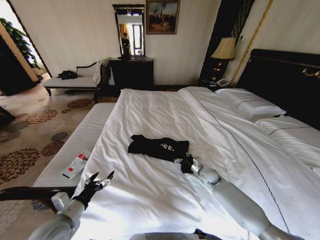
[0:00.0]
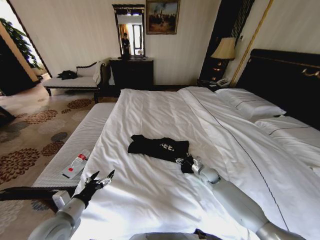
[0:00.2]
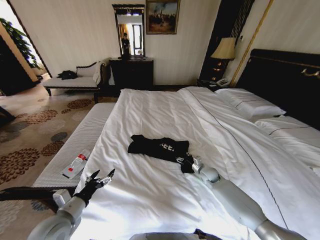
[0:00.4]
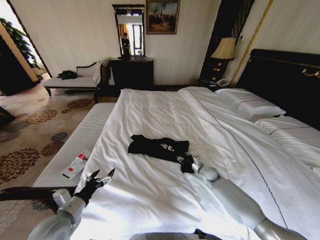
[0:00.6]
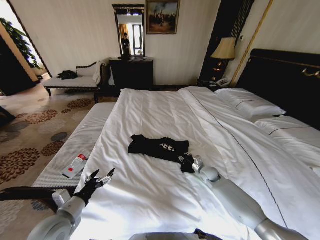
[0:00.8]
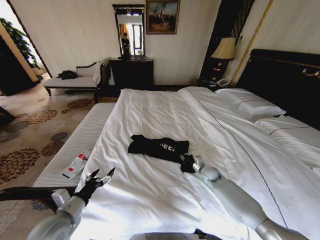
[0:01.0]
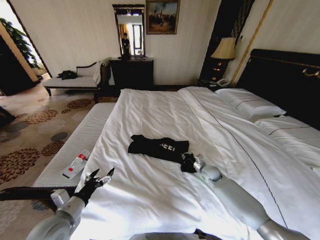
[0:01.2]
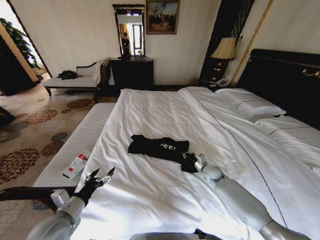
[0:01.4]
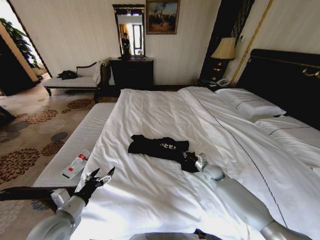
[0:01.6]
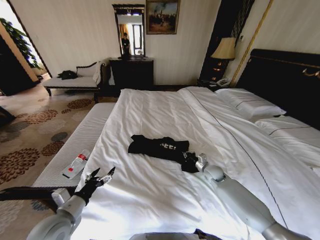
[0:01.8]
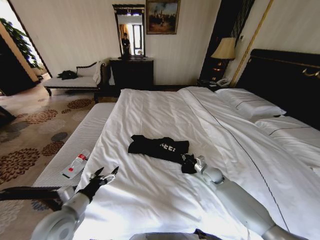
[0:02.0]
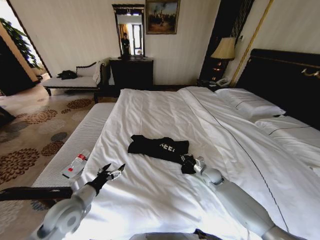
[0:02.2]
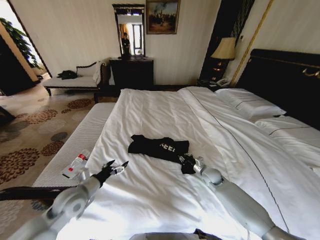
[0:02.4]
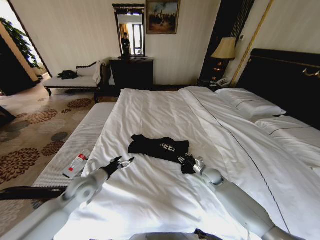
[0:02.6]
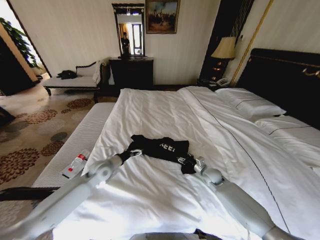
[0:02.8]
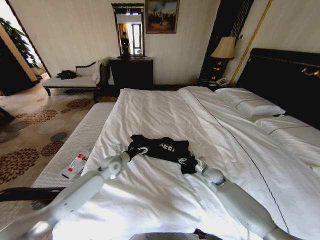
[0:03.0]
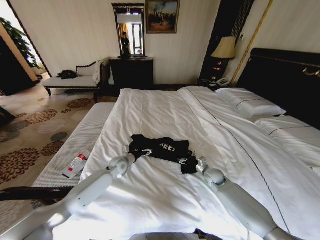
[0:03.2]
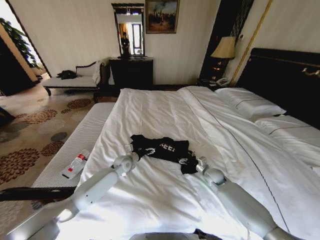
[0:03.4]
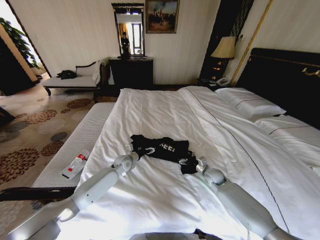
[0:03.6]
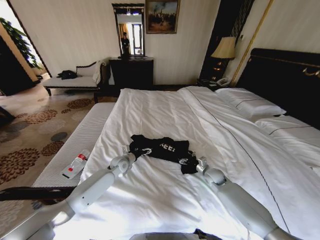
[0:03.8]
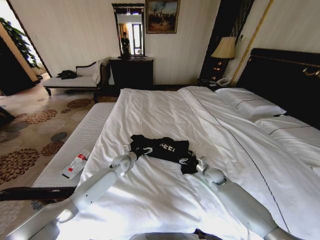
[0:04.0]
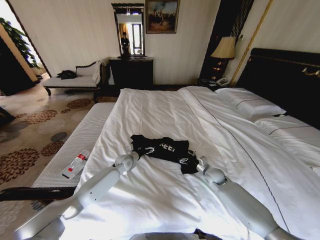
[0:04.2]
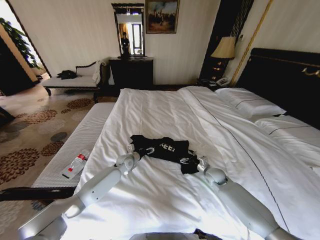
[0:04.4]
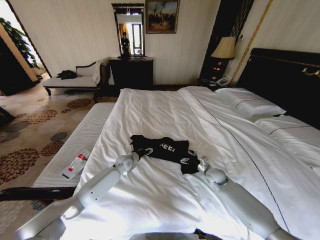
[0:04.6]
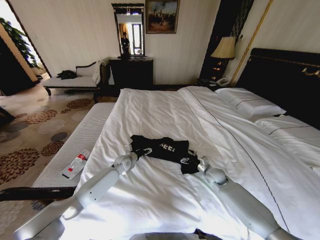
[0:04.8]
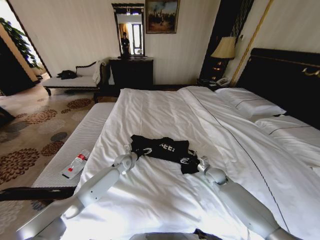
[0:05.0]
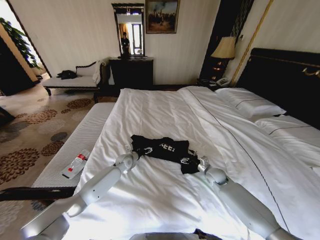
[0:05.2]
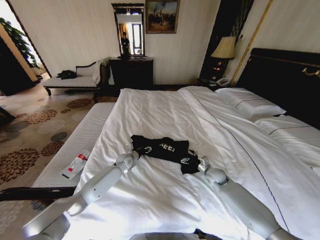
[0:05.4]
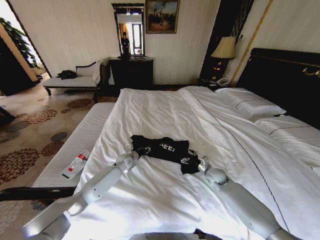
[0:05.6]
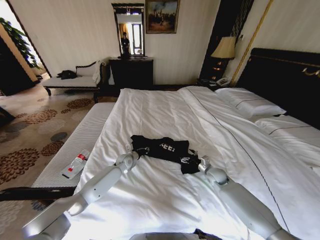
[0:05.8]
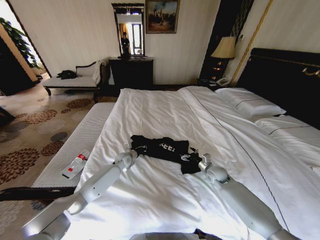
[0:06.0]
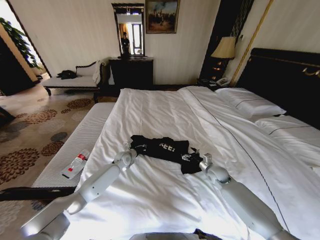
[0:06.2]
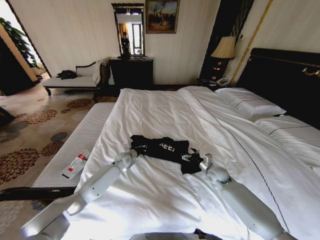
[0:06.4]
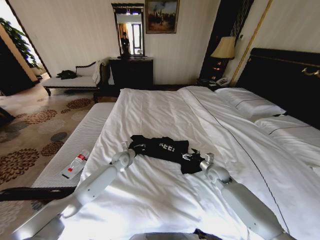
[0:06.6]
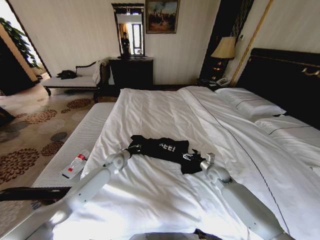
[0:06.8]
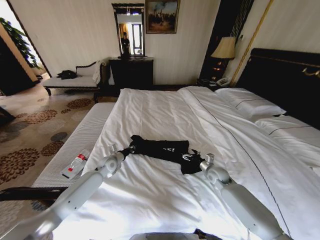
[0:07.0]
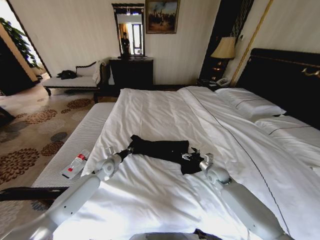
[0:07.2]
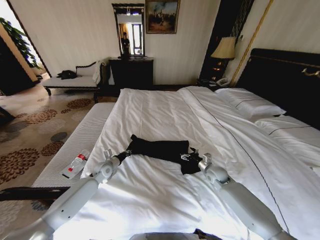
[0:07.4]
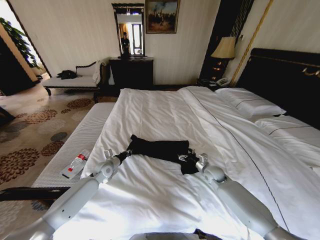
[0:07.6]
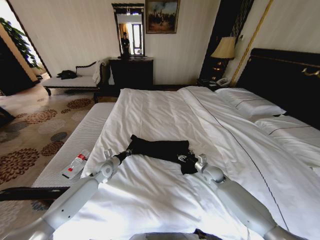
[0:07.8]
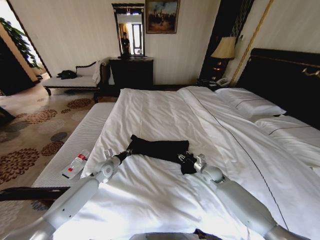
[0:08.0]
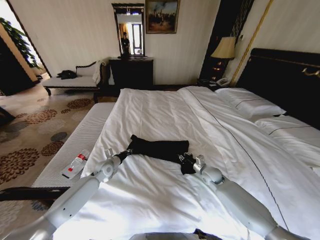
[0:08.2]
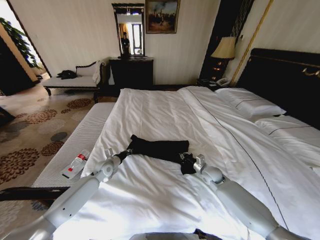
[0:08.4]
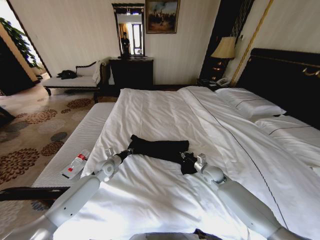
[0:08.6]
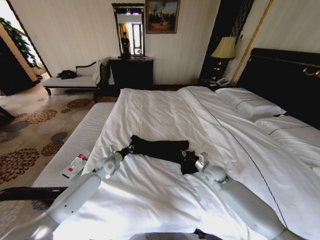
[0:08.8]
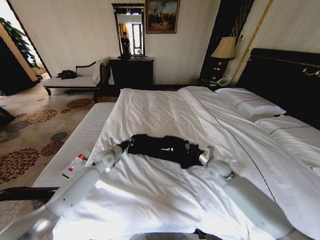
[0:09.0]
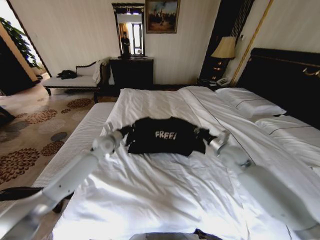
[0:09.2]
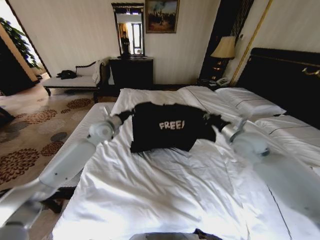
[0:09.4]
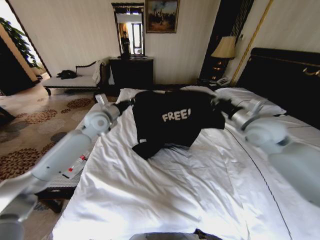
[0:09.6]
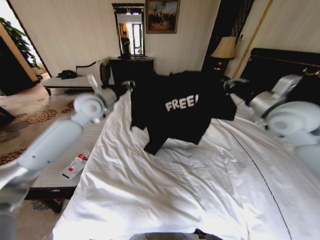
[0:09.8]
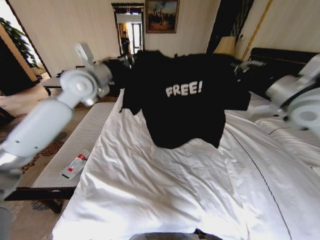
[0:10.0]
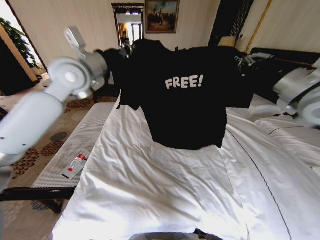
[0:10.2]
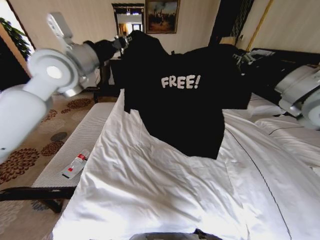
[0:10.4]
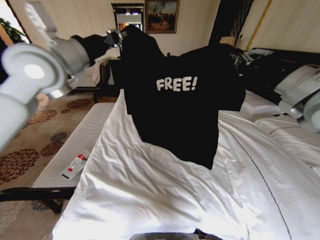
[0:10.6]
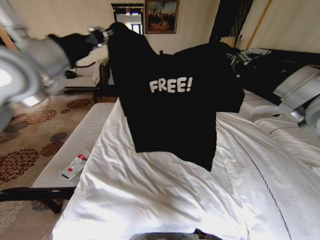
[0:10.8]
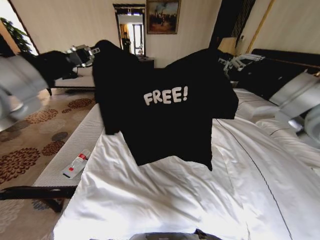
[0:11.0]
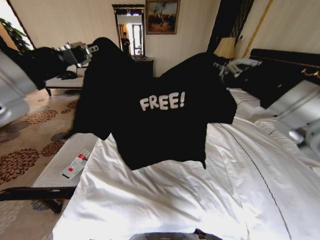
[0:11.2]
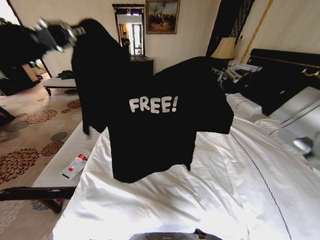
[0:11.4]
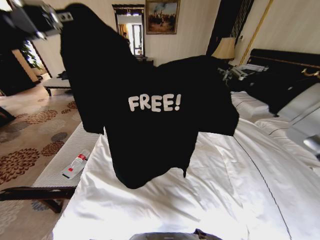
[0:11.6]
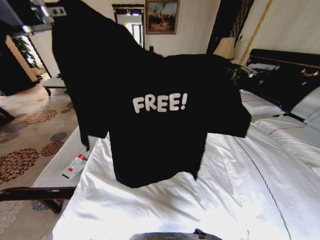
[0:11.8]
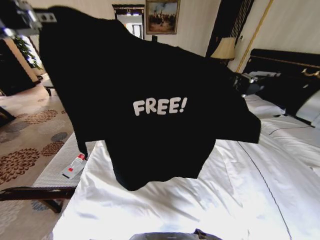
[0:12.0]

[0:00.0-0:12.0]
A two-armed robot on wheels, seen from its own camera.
Task of the whole recording: Fold the clothes on the bed.
0:00.0 to 0:01.6: The right gripper closes.
0:01.6 to 0:03.0: The left gripper travels forward by roughly 25 cm; the right gripper opens up.
0:03.0 to 0:04.4: The left gripper is displaced downward and forward by roughly 10 cm.
0:04.4 to 0:06.0: The left gripper closes its fingers.
0:06.0 to 0:07.6: The left gripper is displaced to the left and backward by approximately 10 cm.
0:07.6 to 0:09.0: The grippers both shift upward by about 10 cm. The right gripper closes its fingers.
0:09.0 to 0:10.4: Both grippers move upward, approximately 40 cm.
0:10.4 to 0:12.0: The right gripper is displaced backward and to the left by some 15 cm, while the left gripper is displaced backward by approximately 25 cm.

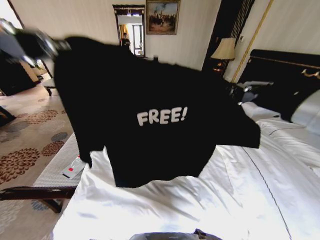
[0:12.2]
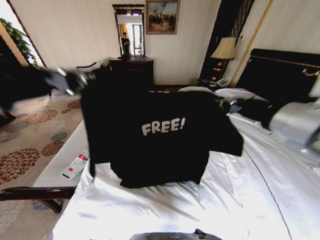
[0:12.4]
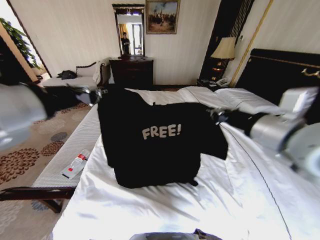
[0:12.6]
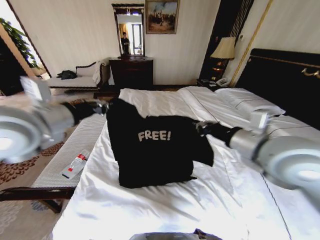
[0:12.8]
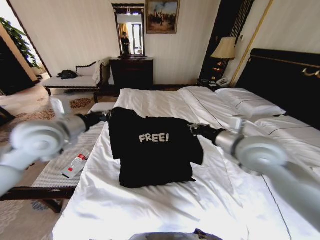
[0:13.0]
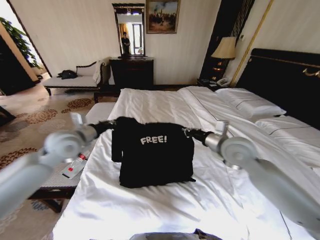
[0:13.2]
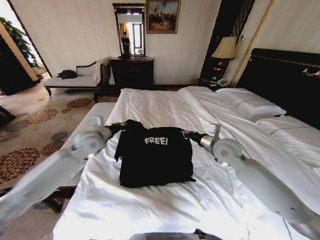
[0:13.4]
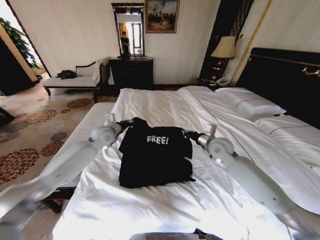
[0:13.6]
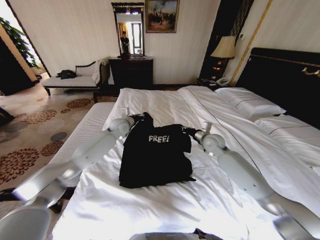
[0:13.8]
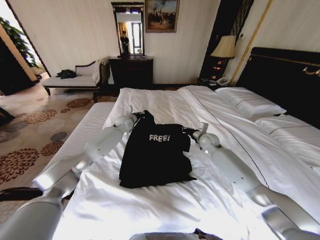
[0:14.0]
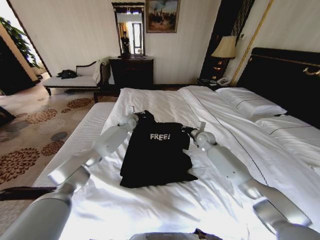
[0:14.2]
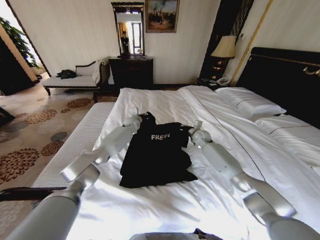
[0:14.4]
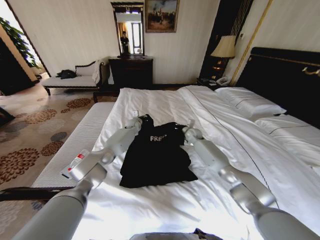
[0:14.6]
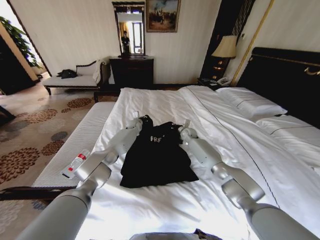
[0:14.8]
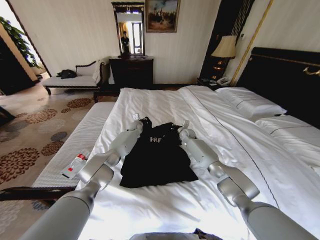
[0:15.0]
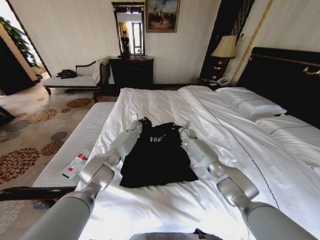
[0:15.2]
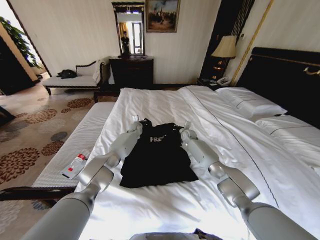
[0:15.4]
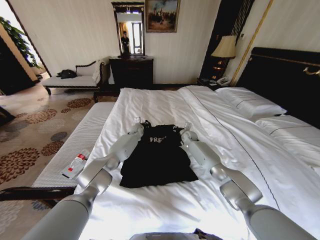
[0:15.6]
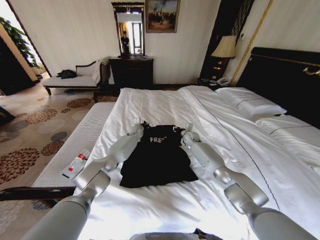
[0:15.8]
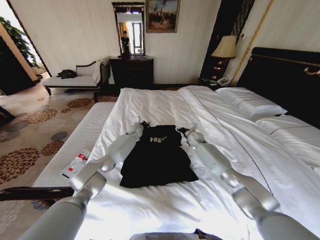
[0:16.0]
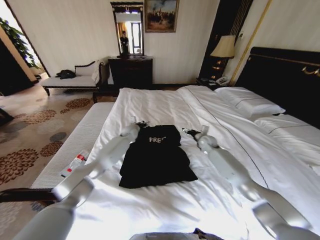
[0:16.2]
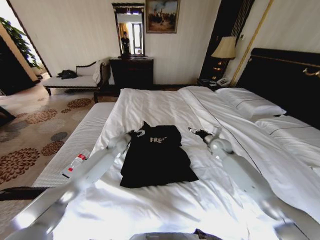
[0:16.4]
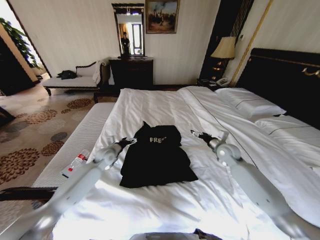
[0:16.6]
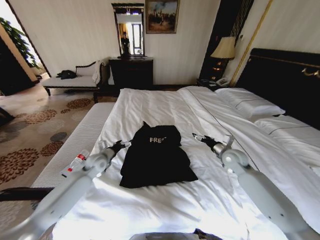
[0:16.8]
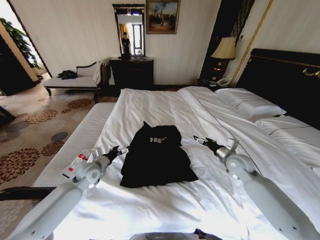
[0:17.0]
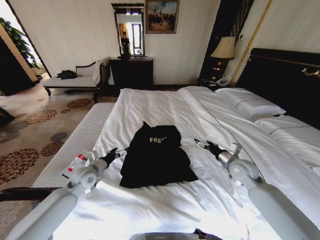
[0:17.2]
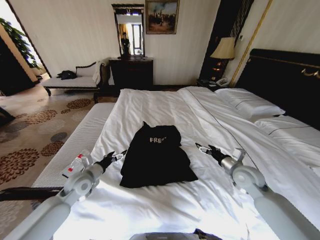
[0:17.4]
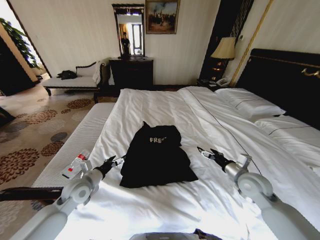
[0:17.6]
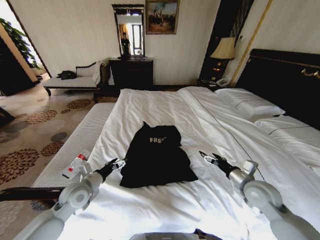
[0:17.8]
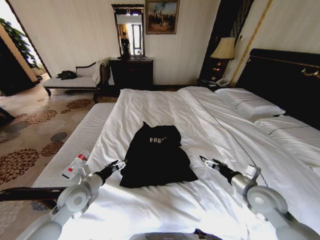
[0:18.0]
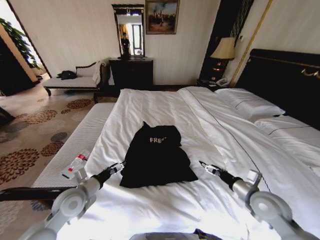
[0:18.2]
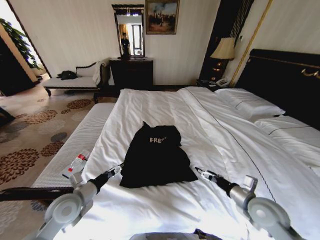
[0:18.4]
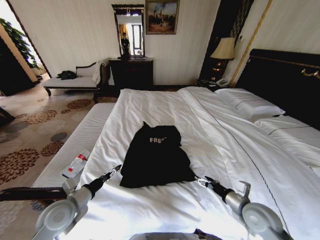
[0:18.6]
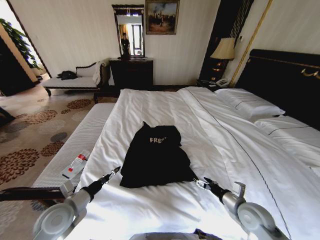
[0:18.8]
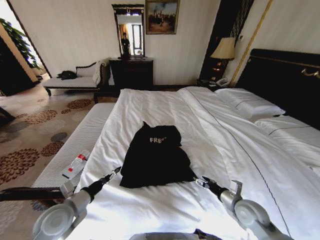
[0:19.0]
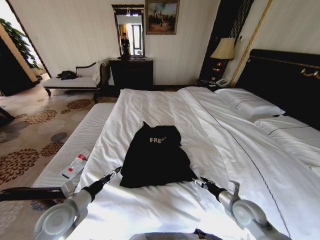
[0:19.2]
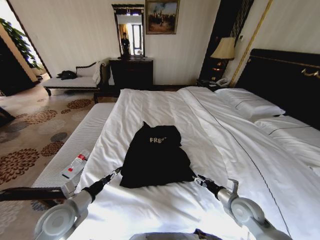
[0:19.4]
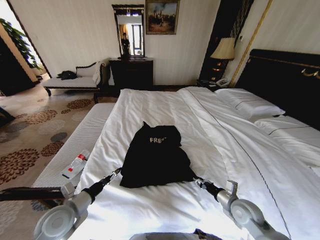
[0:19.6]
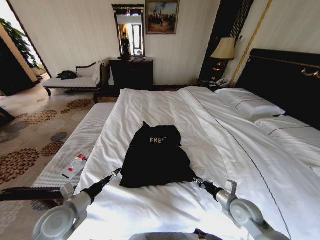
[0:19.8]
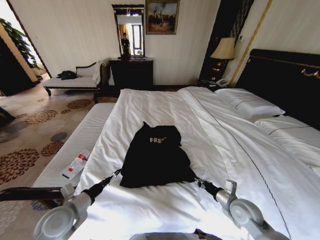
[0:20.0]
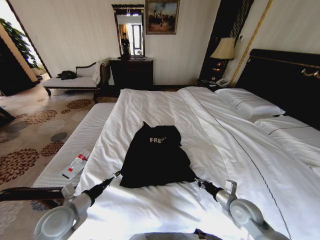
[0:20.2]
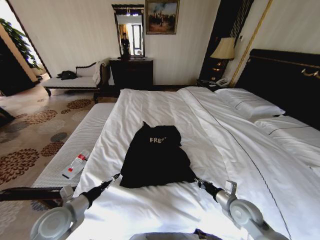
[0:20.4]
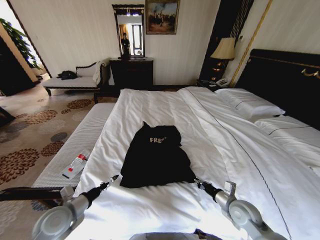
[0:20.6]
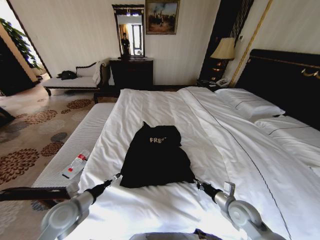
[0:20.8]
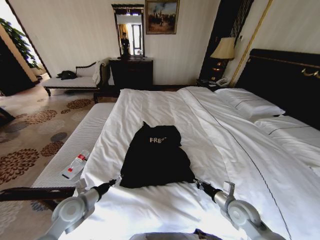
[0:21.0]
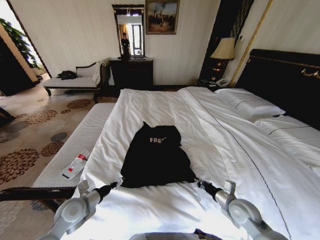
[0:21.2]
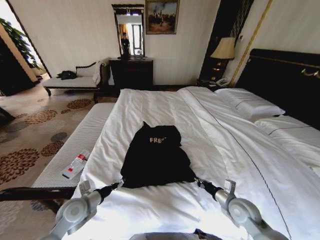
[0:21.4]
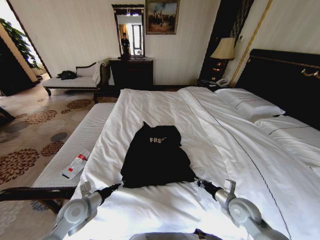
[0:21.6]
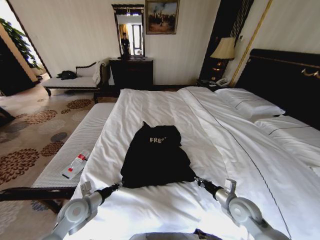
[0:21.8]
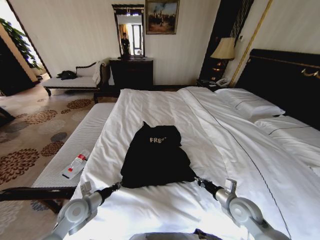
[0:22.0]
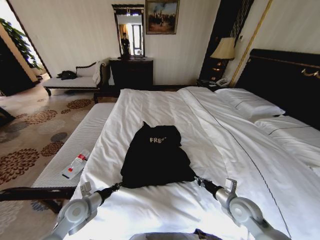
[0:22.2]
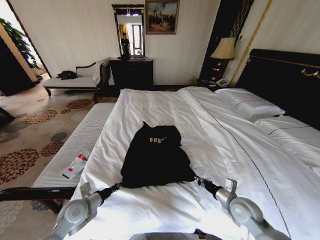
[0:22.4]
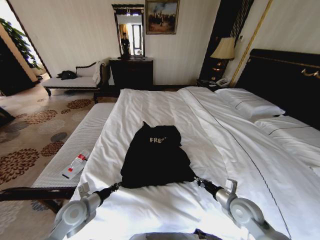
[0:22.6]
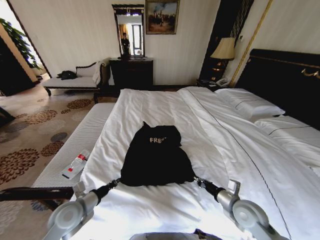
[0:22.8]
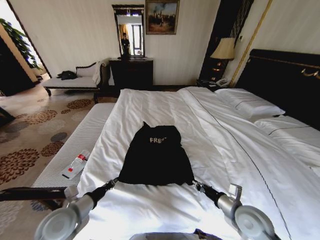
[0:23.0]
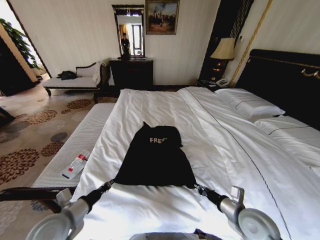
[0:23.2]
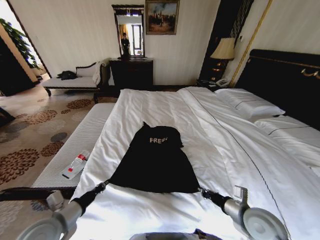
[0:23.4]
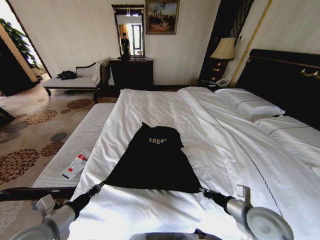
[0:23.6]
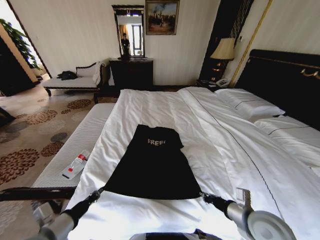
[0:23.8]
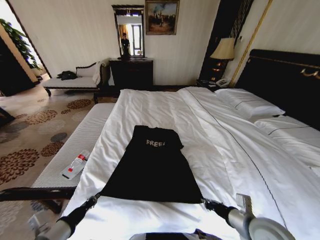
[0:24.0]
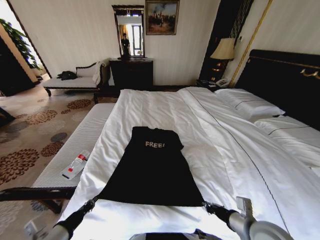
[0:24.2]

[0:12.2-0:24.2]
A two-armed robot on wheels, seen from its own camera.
Task of the whole recording: Fold the clothes on the bed.
0:12.2 to 0:13.8: The right gripper is displaced downward and forward by about 40 cm. The left gripper goes about 50 cm forward and downward.
0:13.8 to 0:15.2: The right gripper moves forward and downward, roughly 20 cm. Meanwhile the left gripper travels downward, forward and to the right by about 15 cm.
0:15.2 to 0:16.6: The left gripper is displaced backward and to the left by roughly 25 cm, and opens up, while the right gripper travels backward and to the right by roughly 20 cm, and opens its fingers.
0:16.6 to 0:18.2: The two grippers go some 25 cm backward.
0:18.2 to 0:19.8: The right gripper is displaced downward by about 10 cm, and closes. The left gripper heads backward, covering approximately 5 cm.
0:19.8 to 0:21.2: The left gripper ends up approximately 5 cm from where it was.
0:21.2 to 0:22.6: The left gripper closes.
0:22.6 to 0:24.2: The two grippers go about 15 cm backward and upward.
